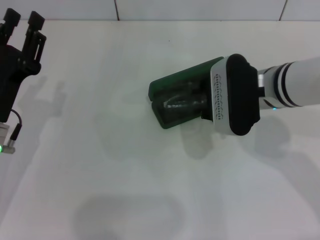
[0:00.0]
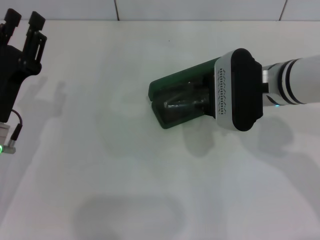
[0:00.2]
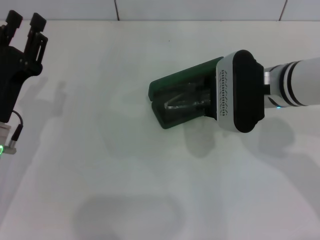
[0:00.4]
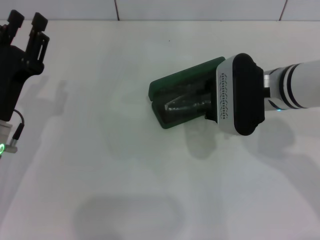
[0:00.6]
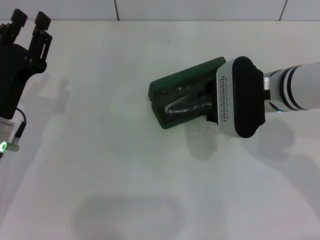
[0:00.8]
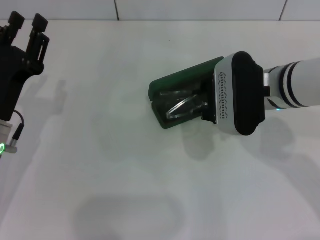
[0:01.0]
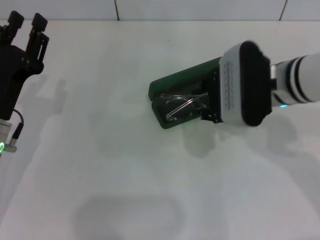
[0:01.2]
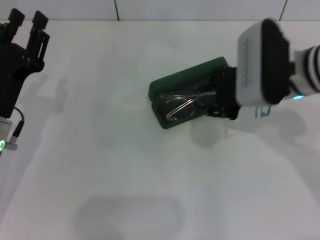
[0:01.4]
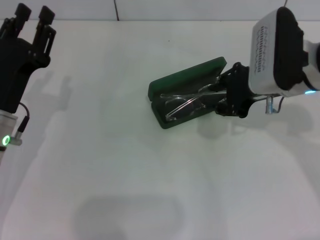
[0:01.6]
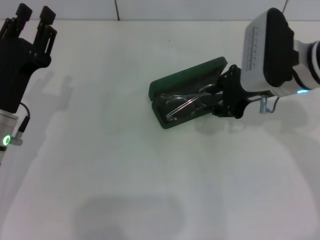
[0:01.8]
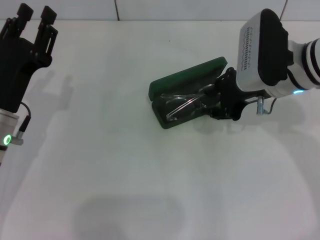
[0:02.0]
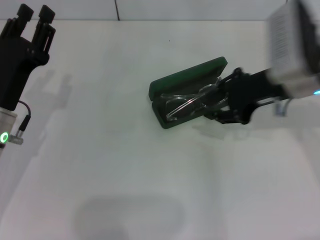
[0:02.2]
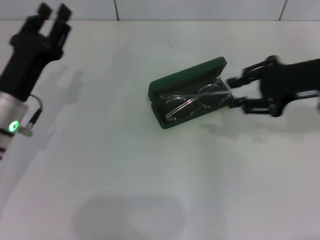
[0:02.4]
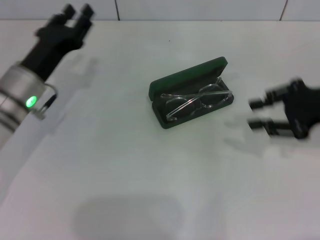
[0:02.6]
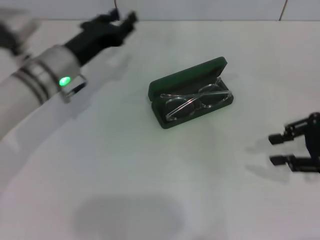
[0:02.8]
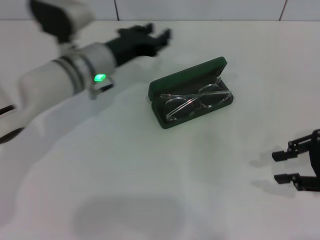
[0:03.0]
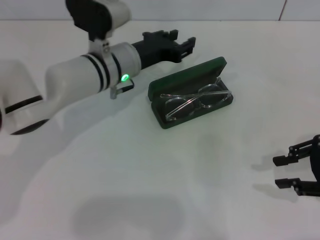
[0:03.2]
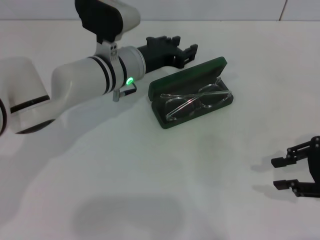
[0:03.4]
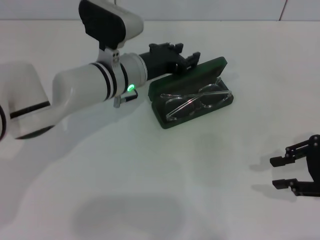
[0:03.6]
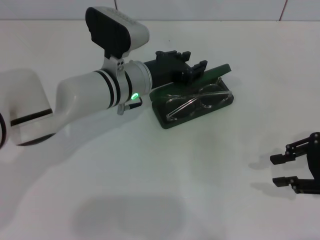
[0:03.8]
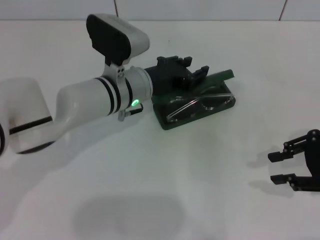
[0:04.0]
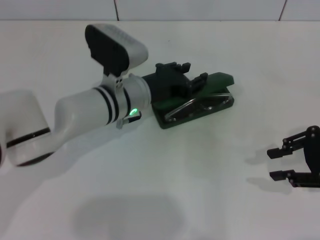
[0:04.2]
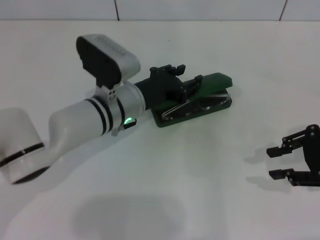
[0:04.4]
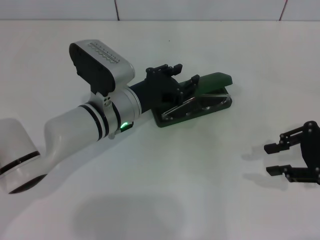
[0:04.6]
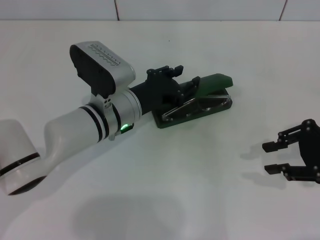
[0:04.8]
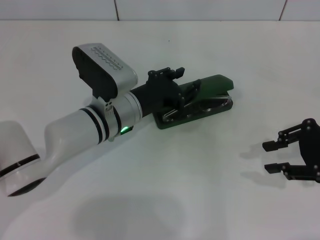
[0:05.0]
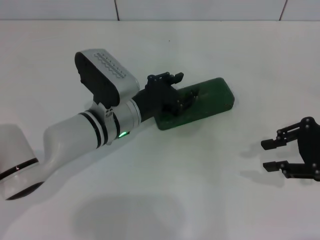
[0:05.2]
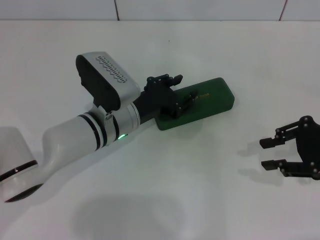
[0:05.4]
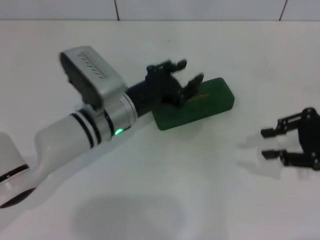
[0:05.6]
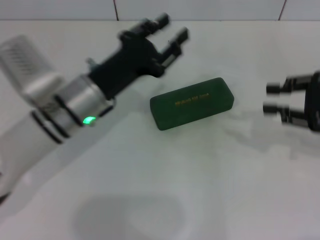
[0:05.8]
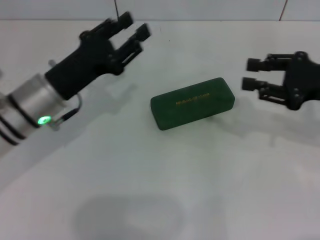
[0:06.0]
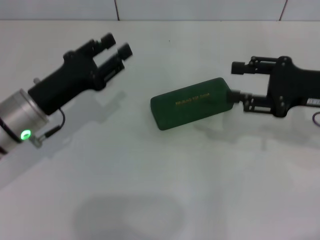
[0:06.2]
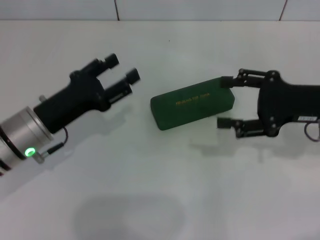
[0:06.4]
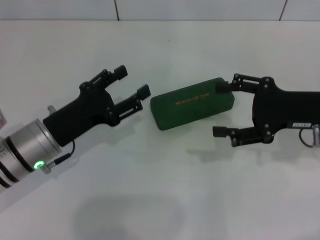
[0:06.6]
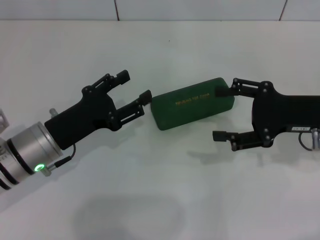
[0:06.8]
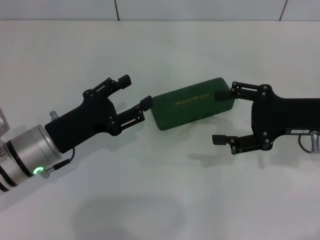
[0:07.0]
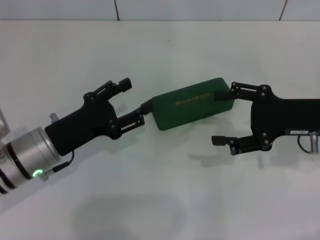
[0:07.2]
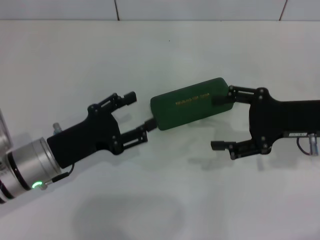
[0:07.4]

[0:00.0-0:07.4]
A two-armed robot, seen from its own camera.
Step, 2.0 to 5.2 s: Close the glasses case with your left hand.
0.0 to 1.4 s: The grippers make only small movements.
1.4 to 3.0 s: The right gripper moves to the right and backward, some 20 cm, while the left gripper heads forward and to the right, covering some 15 cm.
3.0 to 4.4 s: The left gripper ends up approximately 5 cm from where it was.
4.4 to 6.0 s: The left gripper heads to the left, covering some 10 cm.
6.0 to 7.4 s: The right gripper changes place by some 5 cm, and opens, while the left gripper moves backward, roughly 5 cm, and opens up.

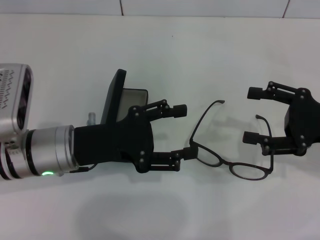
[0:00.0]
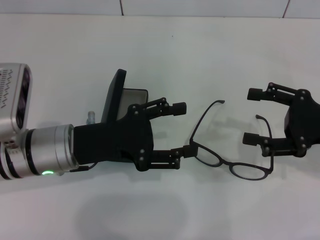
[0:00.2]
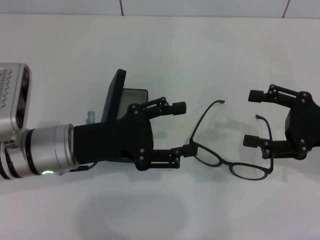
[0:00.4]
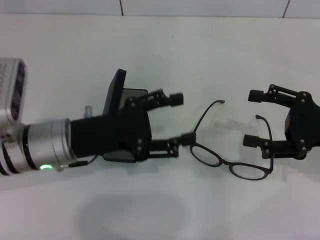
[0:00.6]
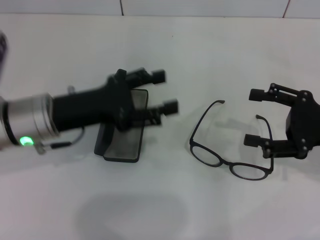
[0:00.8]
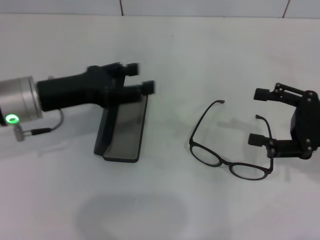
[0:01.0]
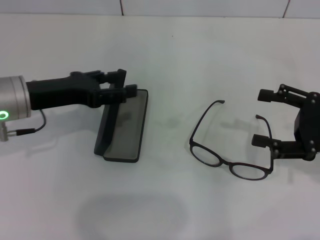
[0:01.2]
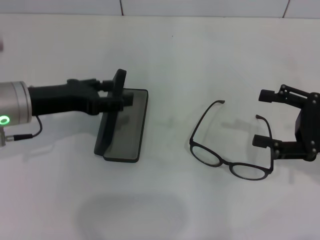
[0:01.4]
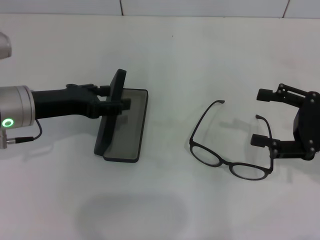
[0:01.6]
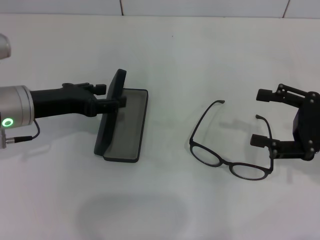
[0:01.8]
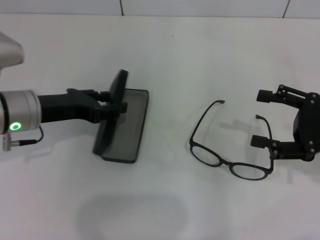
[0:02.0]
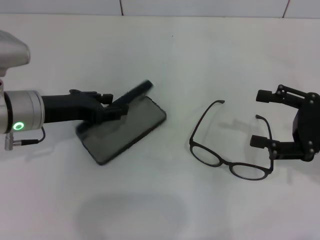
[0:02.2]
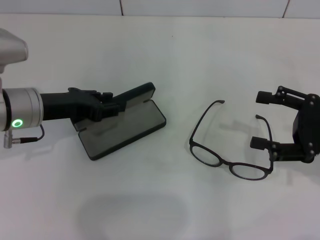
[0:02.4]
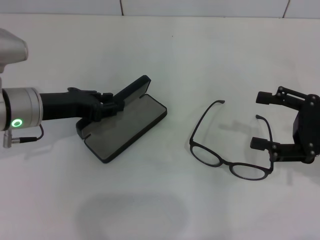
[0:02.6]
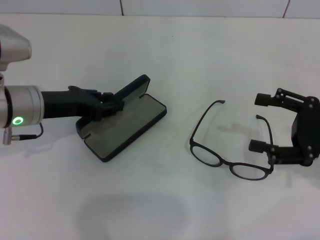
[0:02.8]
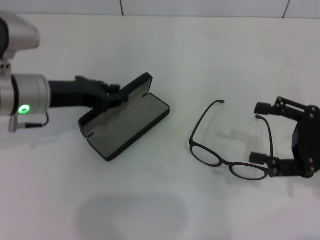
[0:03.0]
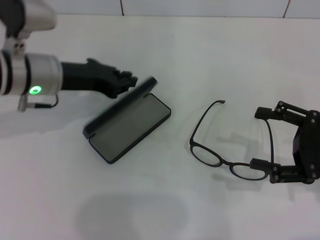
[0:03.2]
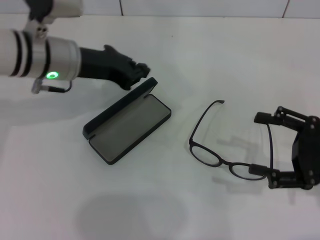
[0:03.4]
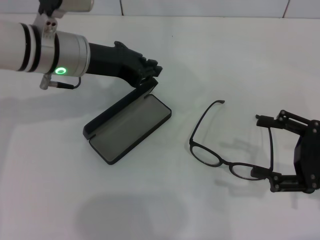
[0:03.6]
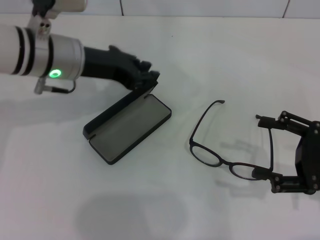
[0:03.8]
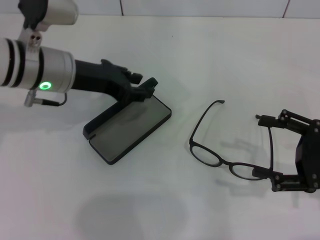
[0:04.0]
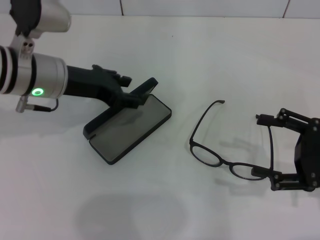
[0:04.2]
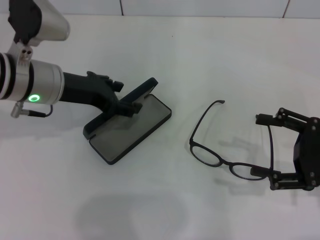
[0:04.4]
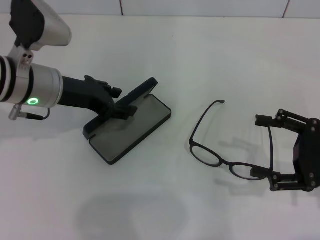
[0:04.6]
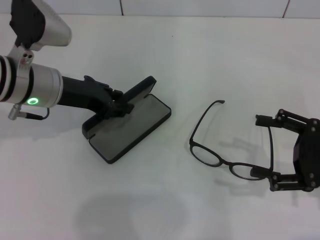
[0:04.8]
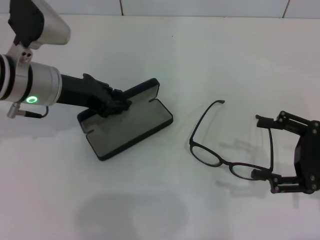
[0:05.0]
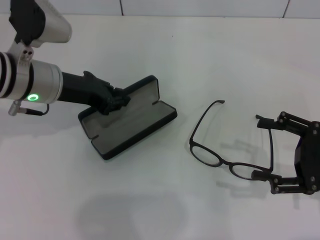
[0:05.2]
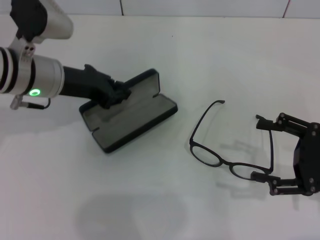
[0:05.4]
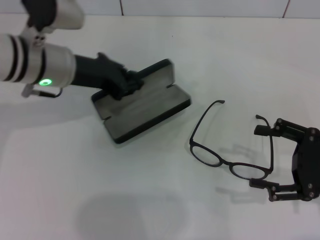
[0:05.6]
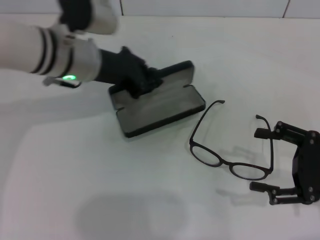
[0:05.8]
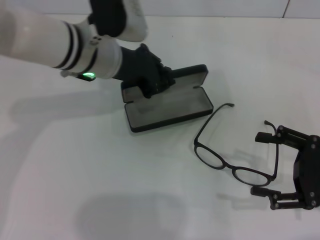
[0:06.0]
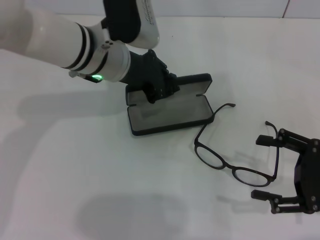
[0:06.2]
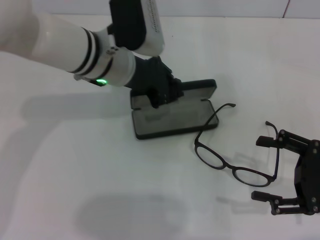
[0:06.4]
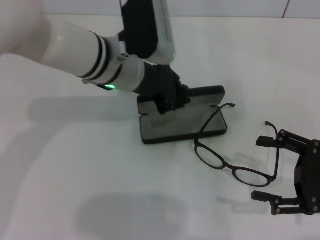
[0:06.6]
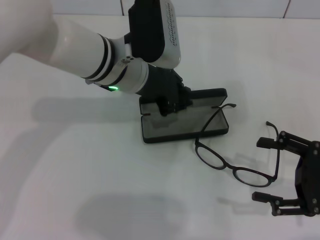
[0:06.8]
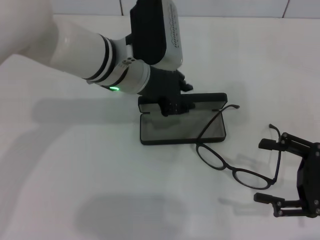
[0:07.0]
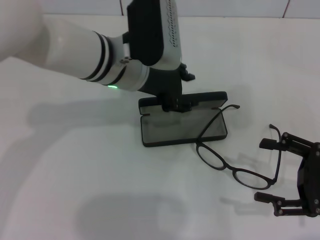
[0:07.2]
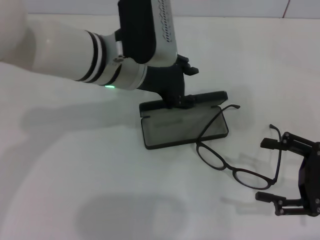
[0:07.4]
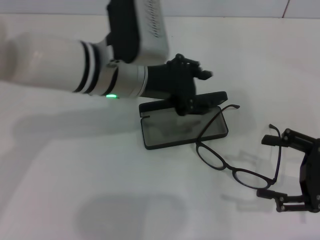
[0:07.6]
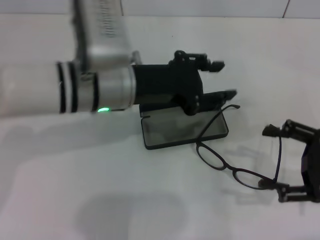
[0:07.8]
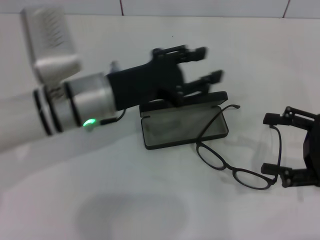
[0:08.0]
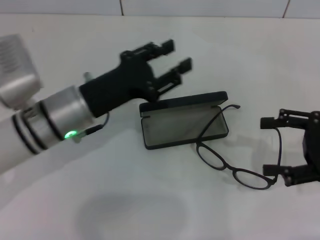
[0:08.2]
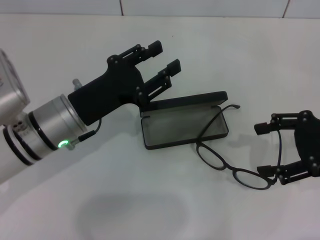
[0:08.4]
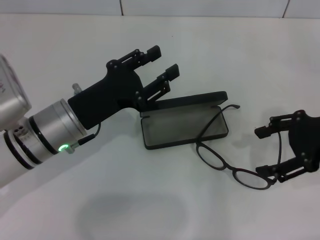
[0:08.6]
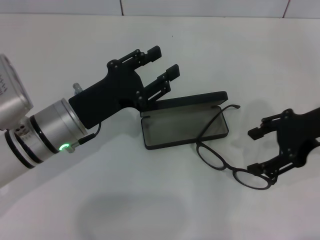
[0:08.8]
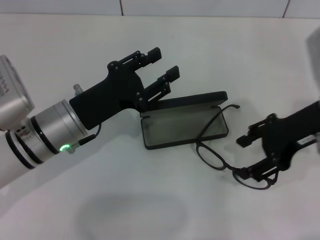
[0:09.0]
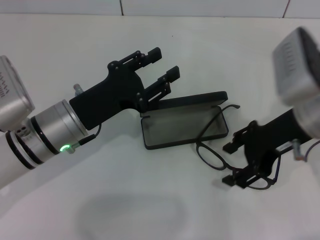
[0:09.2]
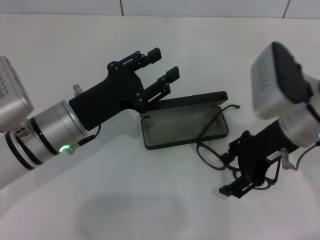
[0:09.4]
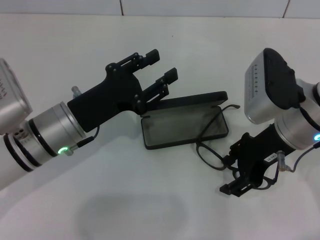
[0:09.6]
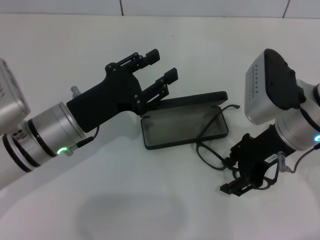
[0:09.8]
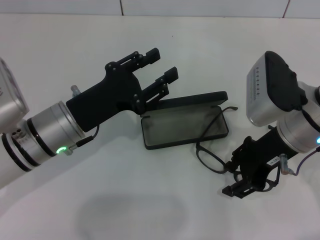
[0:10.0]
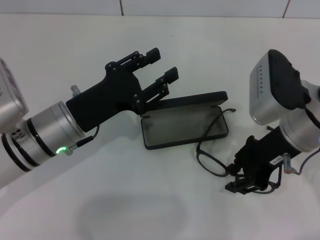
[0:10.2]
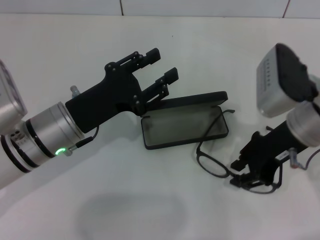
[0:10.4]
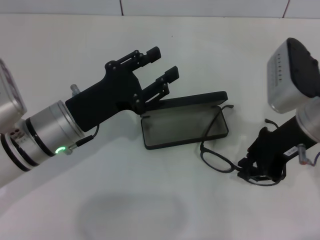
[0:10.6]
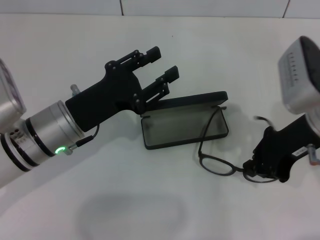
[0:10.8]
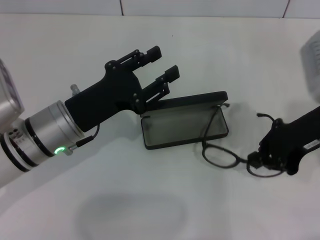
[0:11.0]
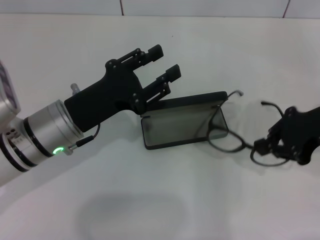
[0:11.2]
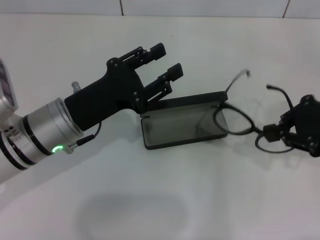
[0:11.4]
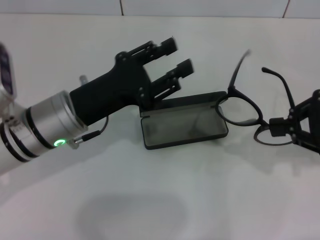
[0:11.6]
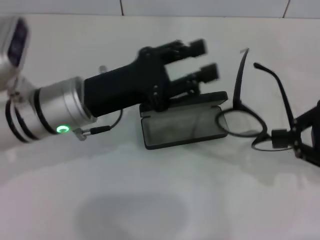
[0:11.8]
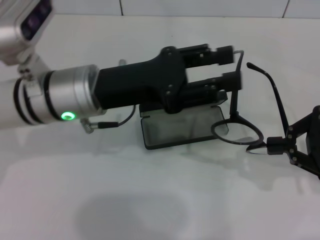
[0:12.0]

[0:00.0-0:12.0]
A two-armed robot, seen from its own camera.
Step, 0.0 to 2.8 s: Grab the glasses case with your left hand.
Step, 3.0 to 7.2 s: Place the glasses case in the center of the table with your left hand.
Step, 7.4 to 10.8 s: Grab the eyeglass frame with your right hand.
0.0 to 1.6 s: The left gripper shifts roughly 5 cm to the left.
1.6 to 3.0 s: The left gripper closes.
3.0 to 4.4 s: The left gripper opens.
4.4 to 6.0 s: The left gripper is displaced to the right by about 10 cm, and closes up.
6.0 to 7.6 s: The left gripper changes place by about 5 cm, and opens.
7.6 to 9.0 s: The left gripper shifts some 15 cm downward, to the left and backward. Meanwhile the right gripper goes some 15 cm forward, upward and to the left.
9.0 to 10.4 s: The right gripper closes up.
10.4 to 12.0 s: The right gripper heads to the right and backward, covering some 15 cm, and closes, while the left gripper heads upward, covering approximately 5 cm.

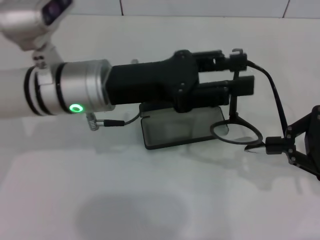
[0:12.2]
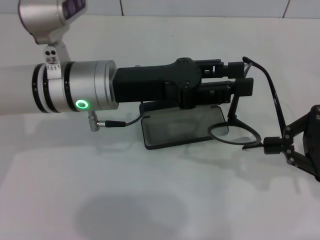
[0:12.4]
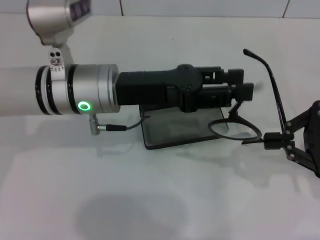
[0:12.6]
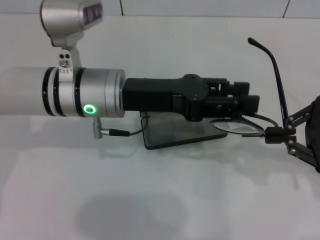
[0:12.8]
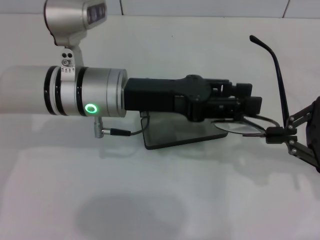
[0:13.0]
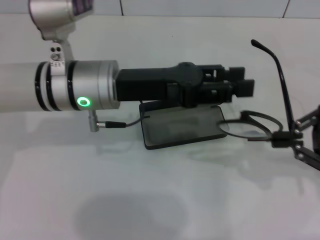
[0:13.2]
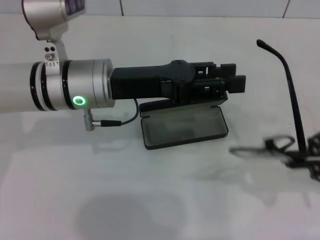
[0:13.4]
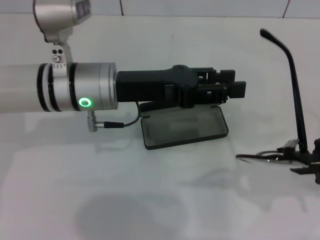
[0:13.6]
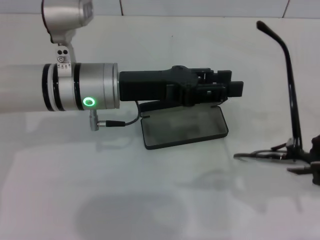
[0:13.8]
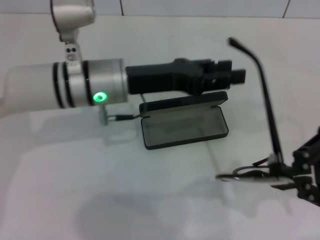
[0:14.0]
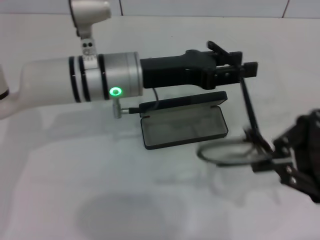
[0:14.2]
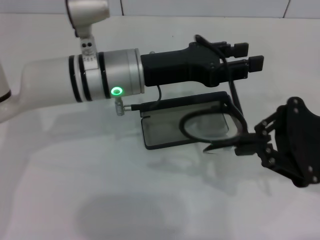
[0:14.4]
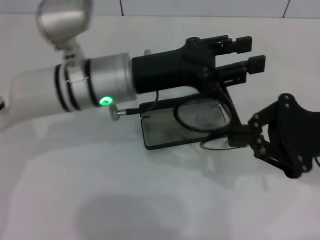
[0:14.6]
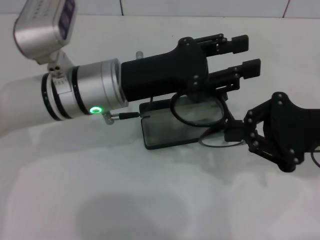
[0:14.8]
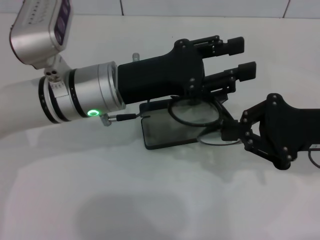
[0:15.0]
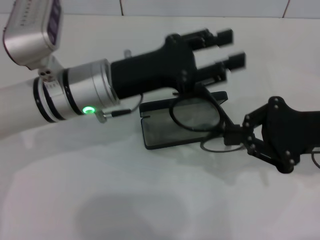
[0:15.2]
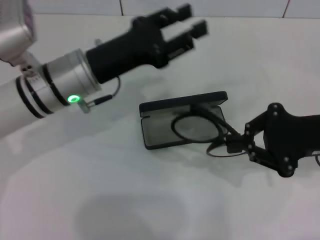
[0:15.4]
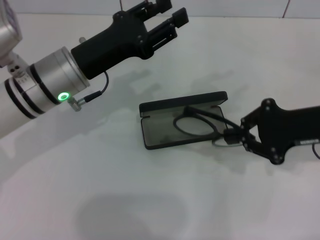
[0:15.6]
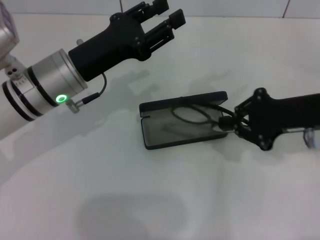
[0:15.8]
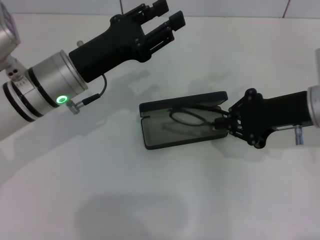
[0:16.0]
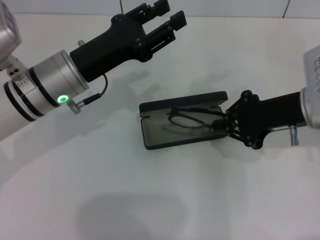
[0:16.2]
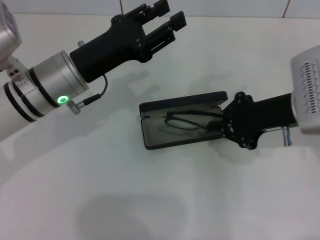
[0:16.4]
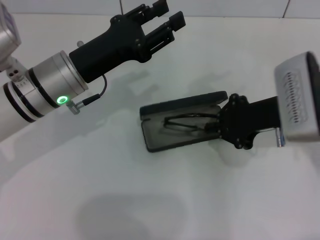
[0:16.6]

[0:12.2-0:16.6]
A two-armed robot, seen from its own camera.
Step, 12.2 to 14.8 s: Fold the frame with your left hand.
13.6 to 15.2 s: The right gripper moves to the left and forward, some 10 cm.
15.2 to 16.6 s: The right gripper moves to the left, about 5 cm.
